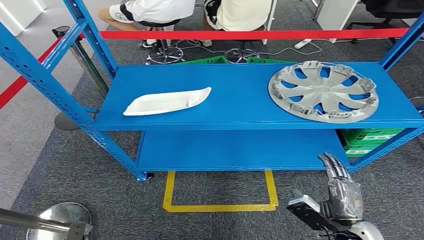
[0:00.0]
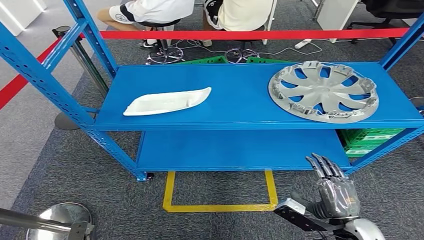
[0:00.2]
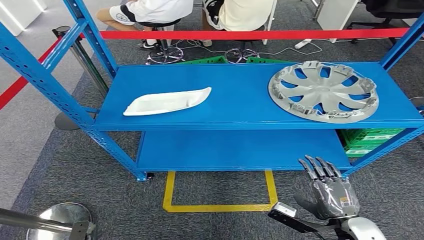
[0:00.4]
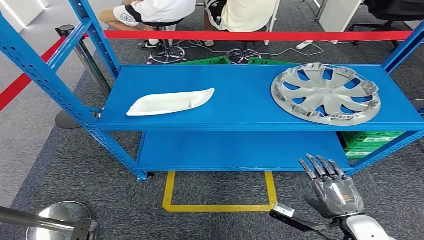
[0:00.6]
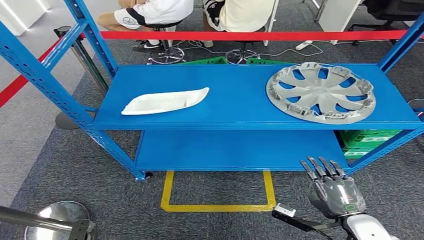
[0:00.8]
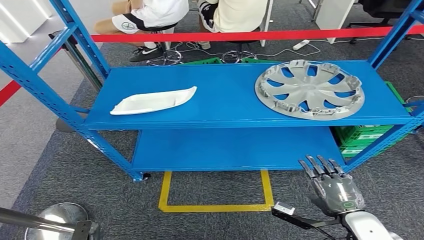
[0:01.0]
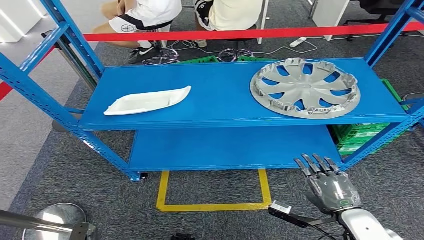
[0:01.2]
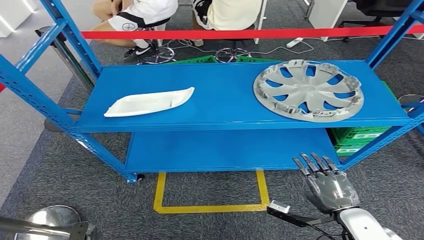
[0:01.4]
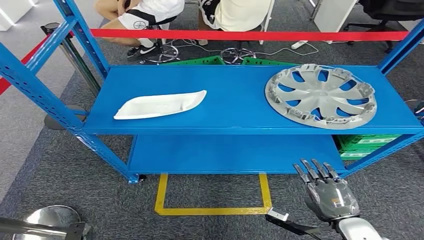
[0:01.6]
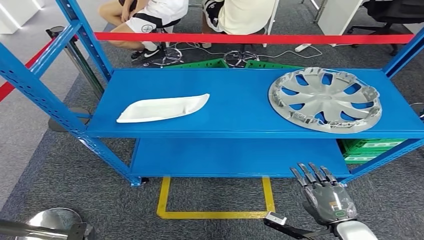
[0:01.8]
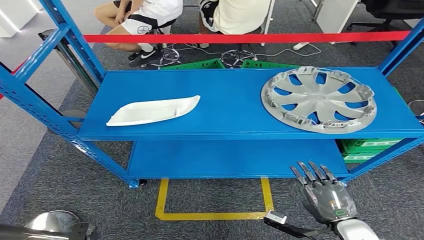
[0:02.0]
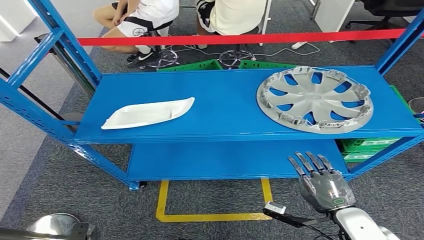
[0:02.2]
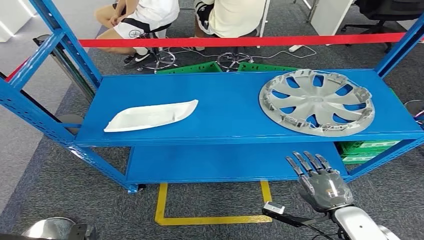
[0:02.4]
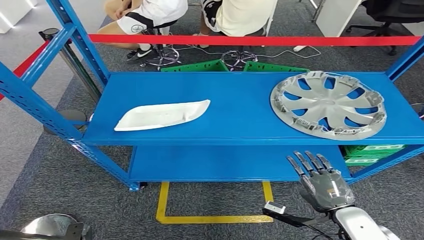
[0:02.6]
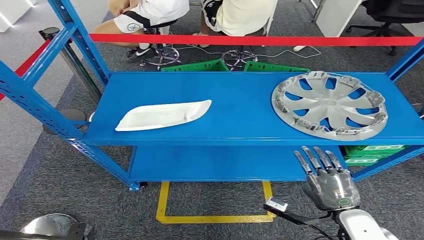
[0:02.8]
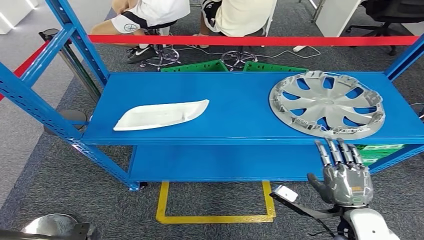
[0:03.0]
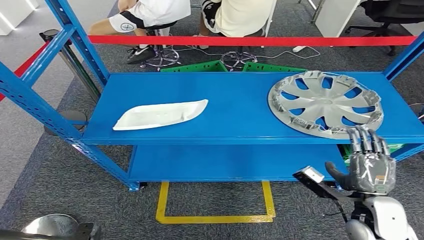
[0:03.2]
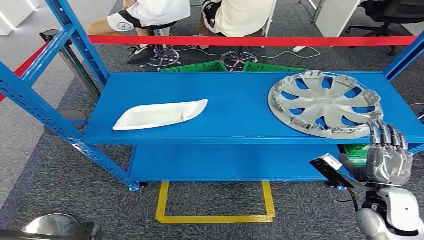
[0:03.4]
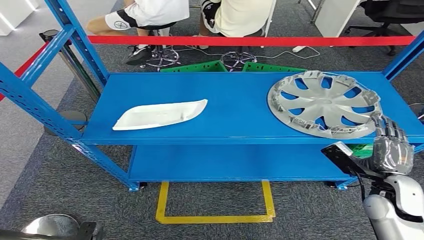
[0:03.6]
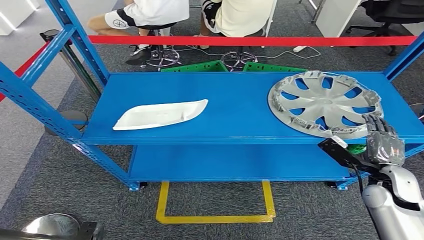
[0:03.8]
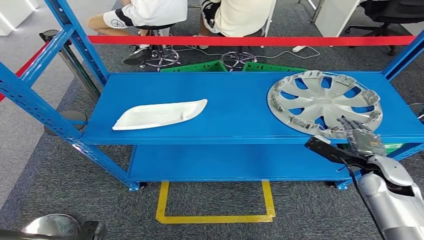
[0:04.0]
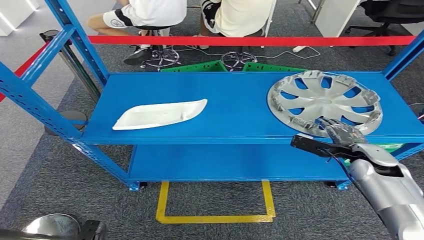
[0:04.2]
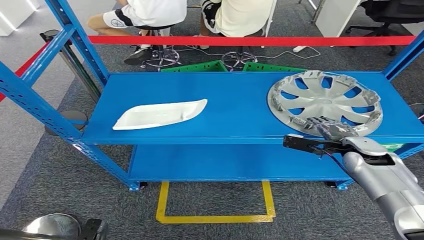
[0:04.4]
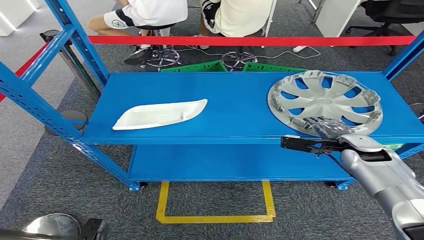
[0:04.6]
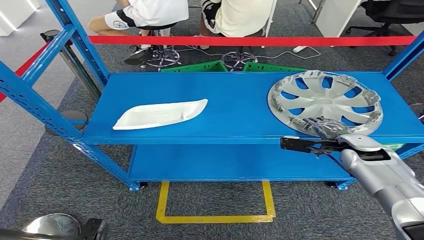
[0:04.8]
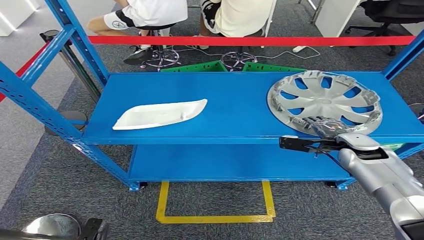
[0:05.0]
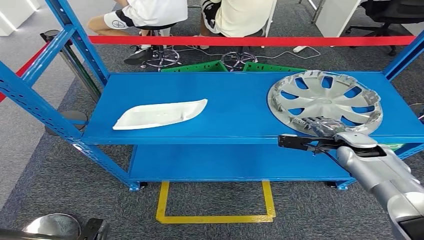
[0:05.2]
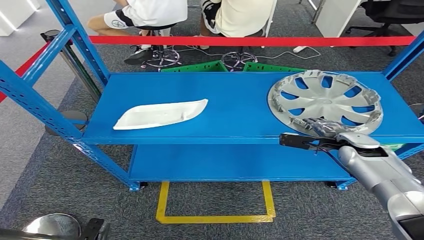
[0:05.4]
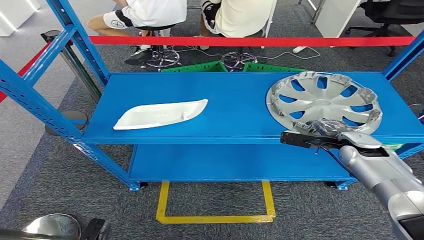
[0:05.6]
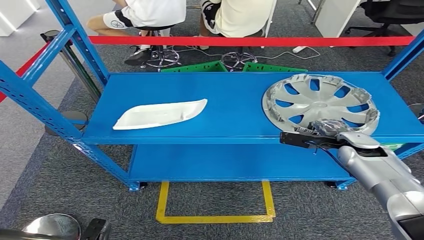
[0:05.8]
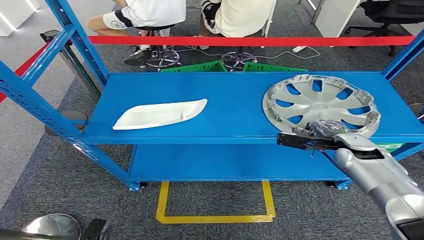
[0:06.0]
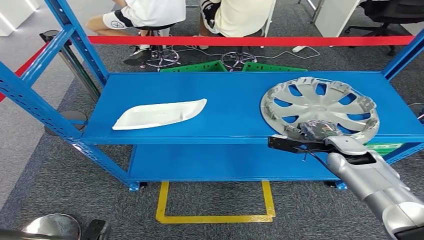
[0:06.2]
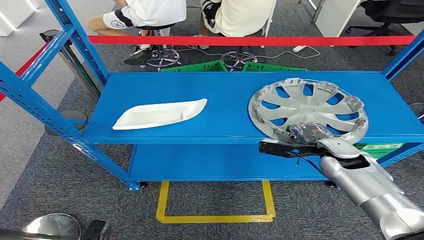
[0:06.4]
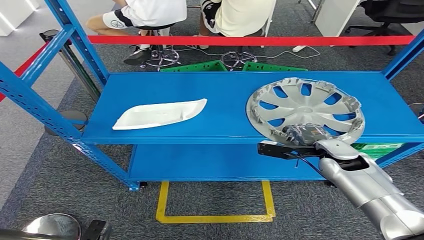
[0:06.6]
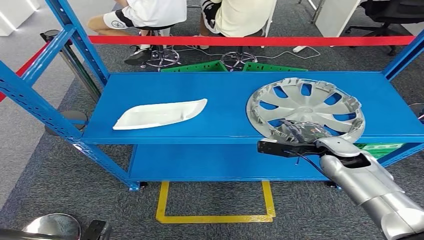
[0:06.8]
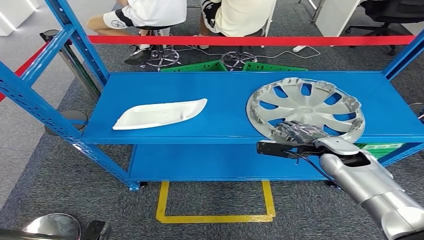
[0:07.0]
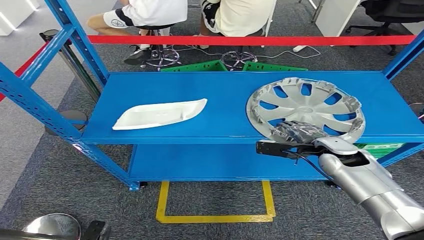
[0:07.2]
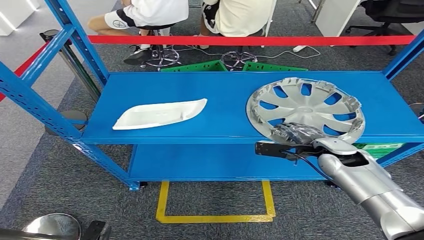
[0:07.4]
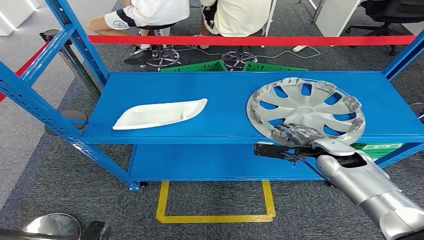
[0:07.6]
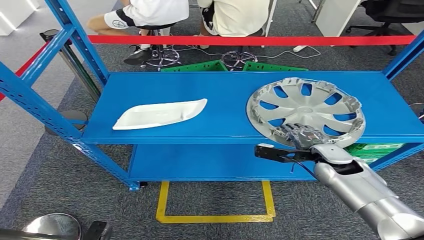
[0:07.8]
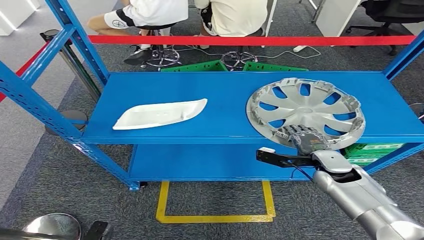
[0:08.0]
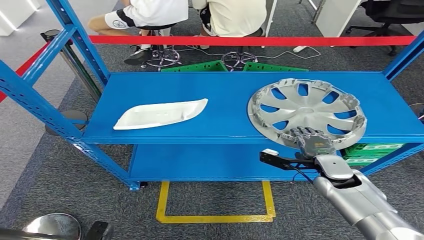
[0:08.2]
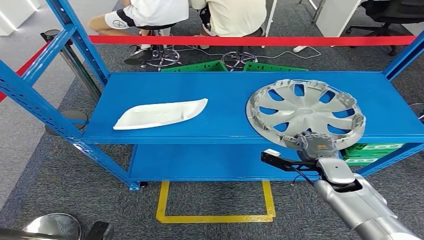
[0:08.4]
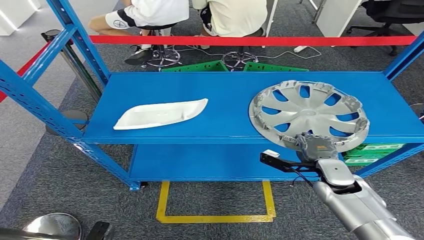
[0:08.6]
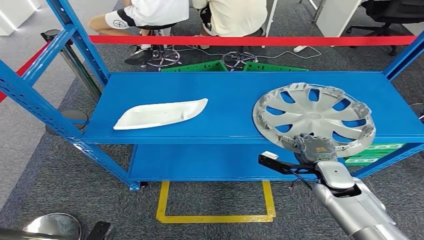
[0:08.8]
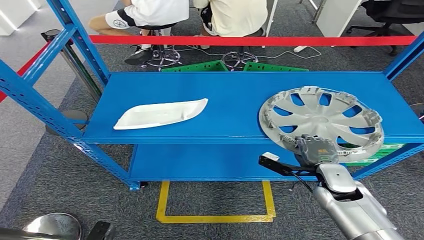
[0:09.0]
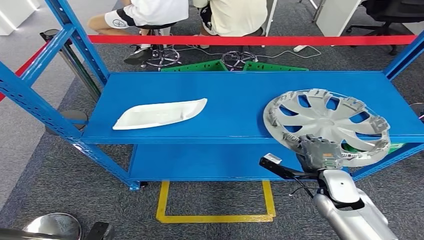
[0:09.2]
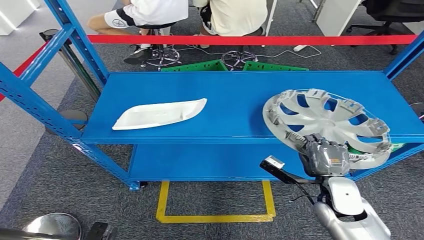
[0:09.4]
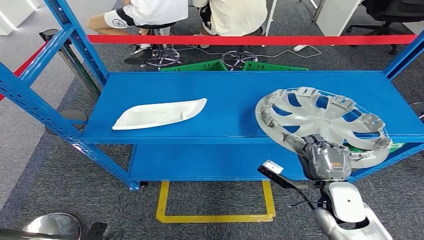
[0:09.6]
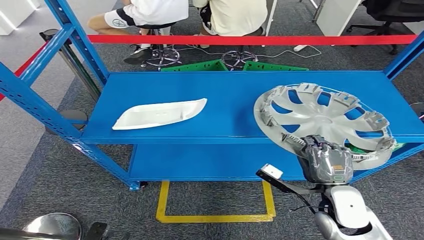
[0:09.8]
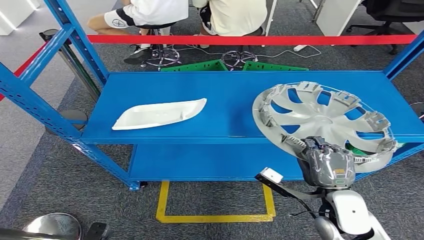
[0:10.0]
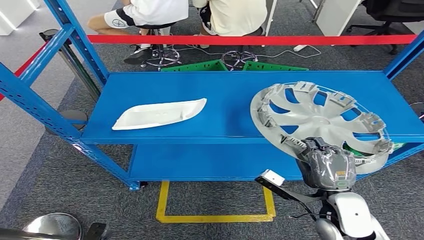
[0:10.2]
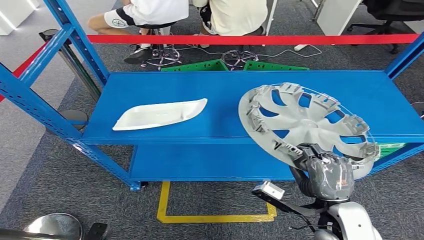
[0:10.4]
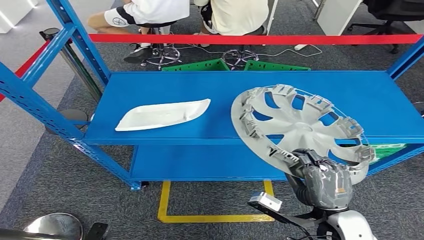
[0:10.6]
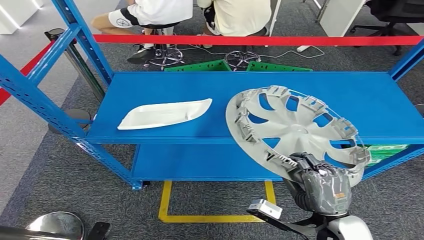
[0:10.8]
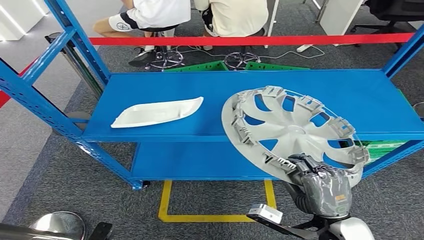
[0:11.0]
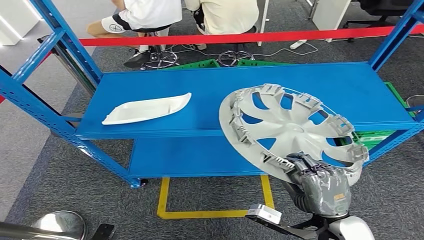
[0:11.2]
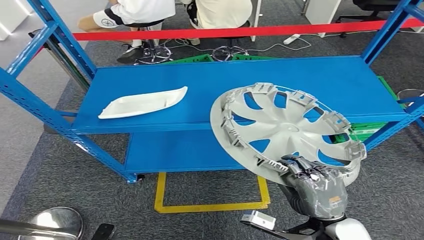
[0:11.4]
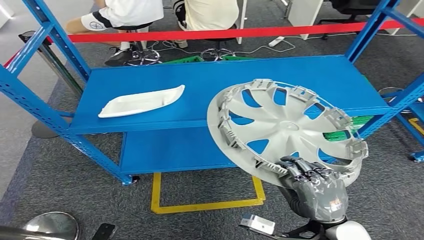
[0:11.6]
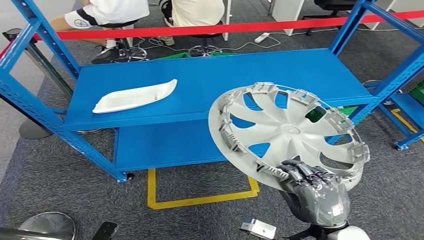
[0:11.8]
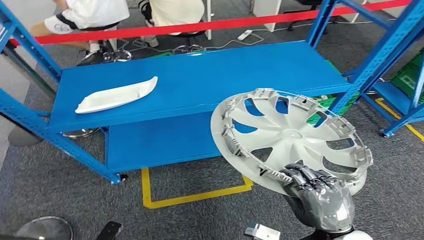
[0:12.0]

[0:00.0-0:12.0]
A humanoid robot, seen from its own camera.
Step, 0:00.0 to 0:11.0: Pick up the small component from the shelf.
0:03.0 to 0:04.4: The right hand is displaced forward by roughly 20 cm.
0:04.4 to 0:06.0: There are only small adjustments of the hands.
0:06.0 to 0:07.6: The right hand goes about 5 cm to the left.
0:07.6 to 0:09.0: The right hand goes about 10 cm backward and downward.
0:09.0 to 0:10.4: The right hand goes roughly 10 cm backward.

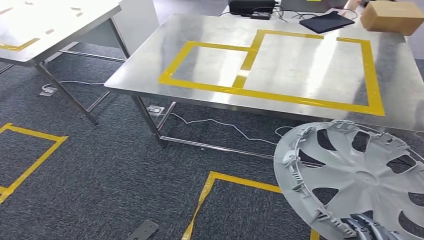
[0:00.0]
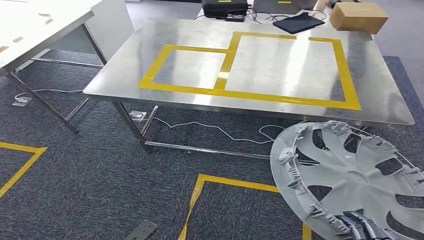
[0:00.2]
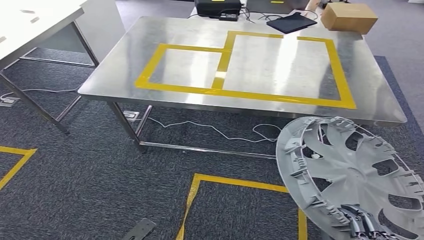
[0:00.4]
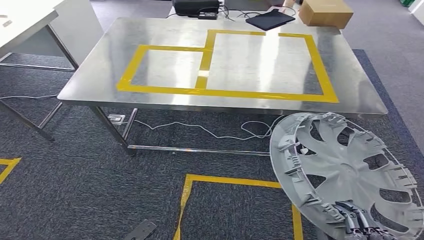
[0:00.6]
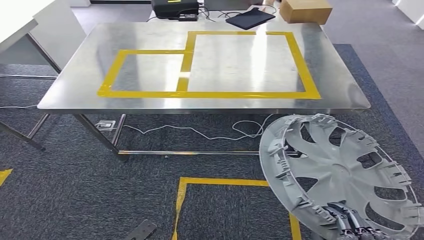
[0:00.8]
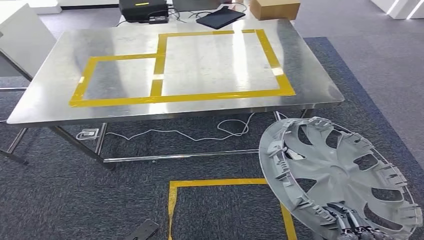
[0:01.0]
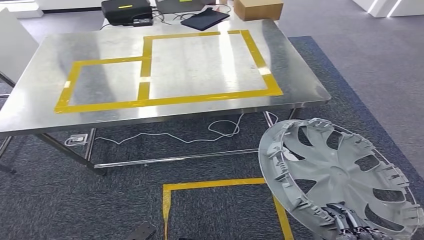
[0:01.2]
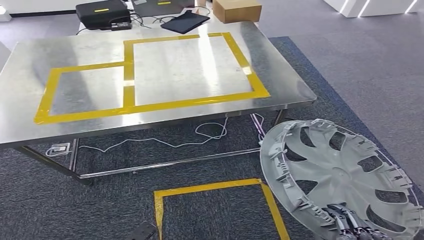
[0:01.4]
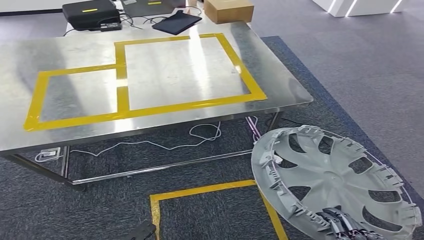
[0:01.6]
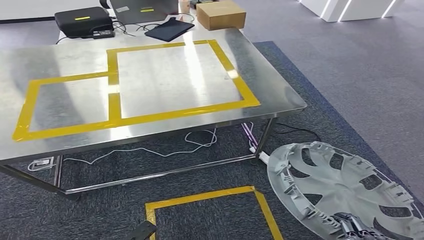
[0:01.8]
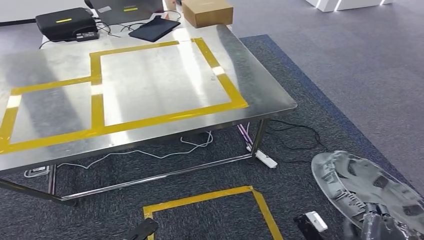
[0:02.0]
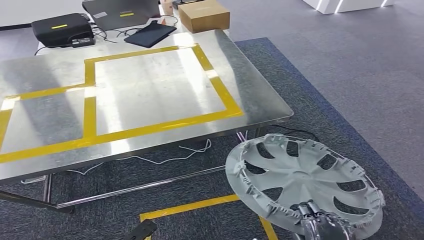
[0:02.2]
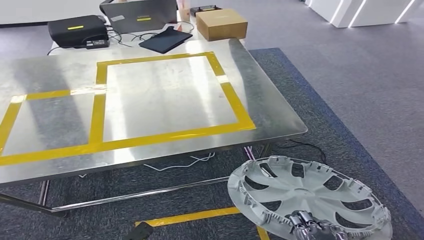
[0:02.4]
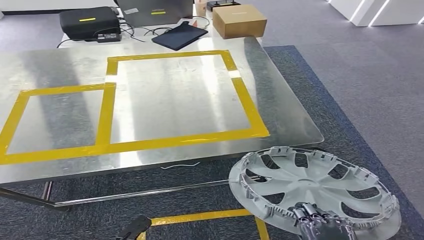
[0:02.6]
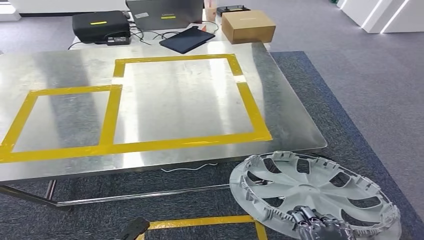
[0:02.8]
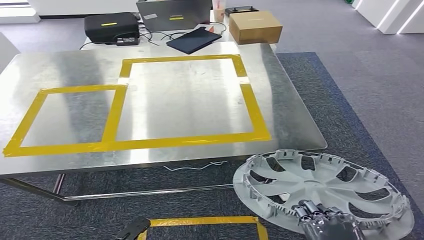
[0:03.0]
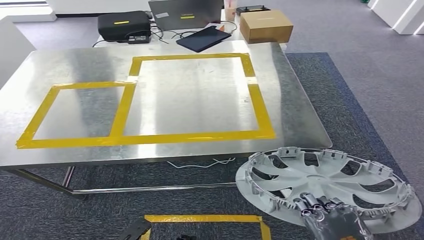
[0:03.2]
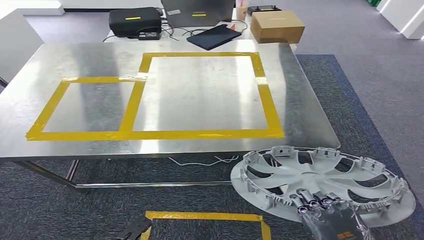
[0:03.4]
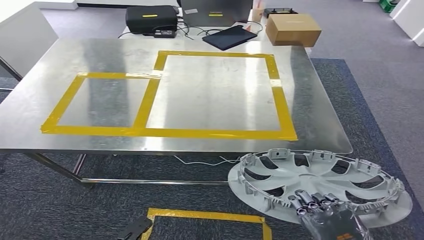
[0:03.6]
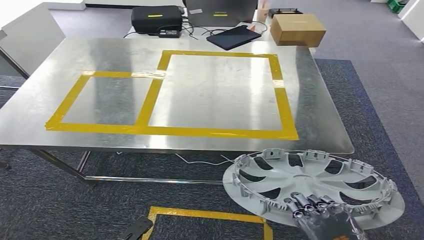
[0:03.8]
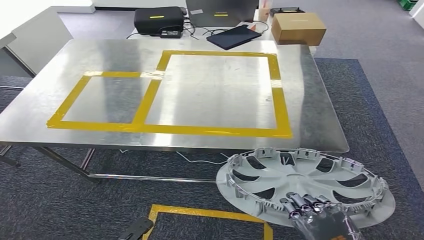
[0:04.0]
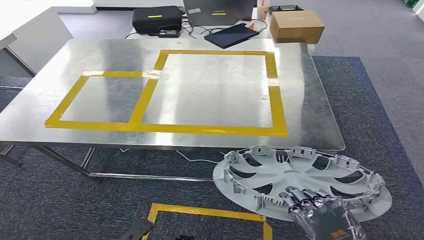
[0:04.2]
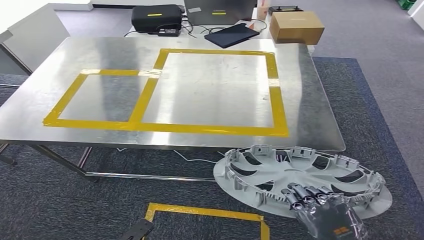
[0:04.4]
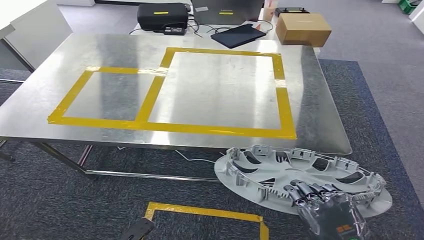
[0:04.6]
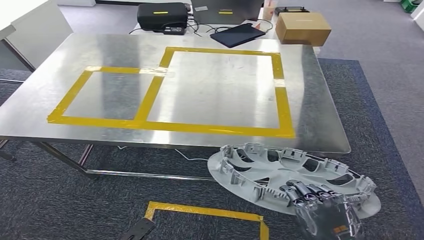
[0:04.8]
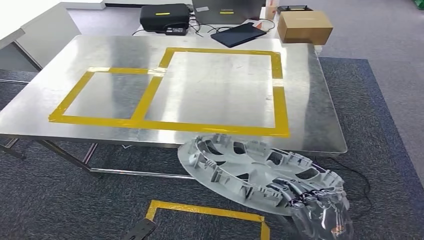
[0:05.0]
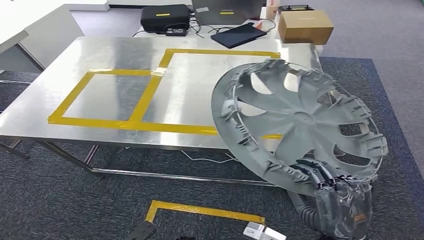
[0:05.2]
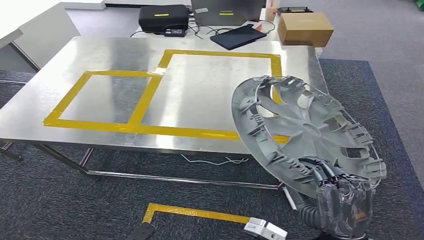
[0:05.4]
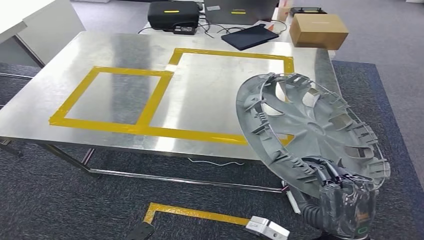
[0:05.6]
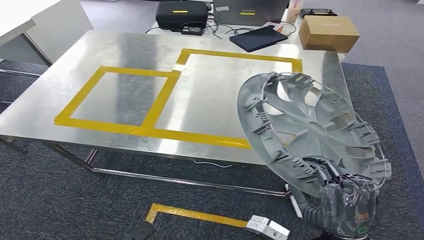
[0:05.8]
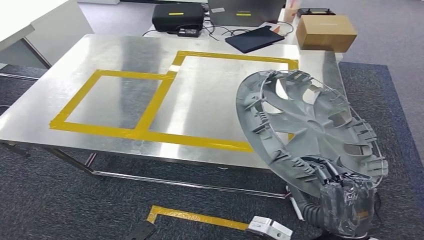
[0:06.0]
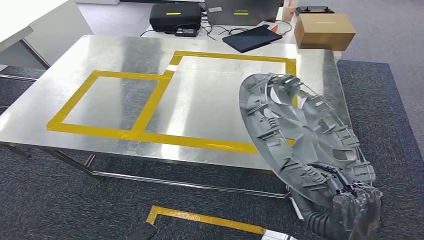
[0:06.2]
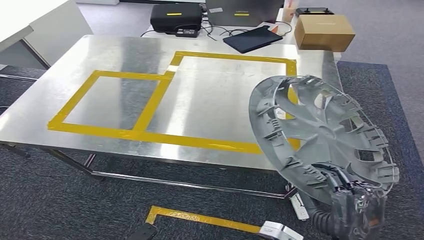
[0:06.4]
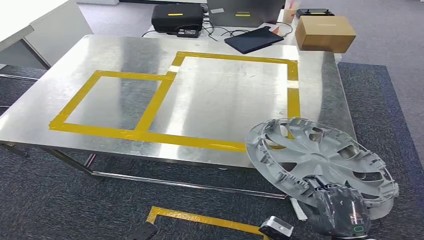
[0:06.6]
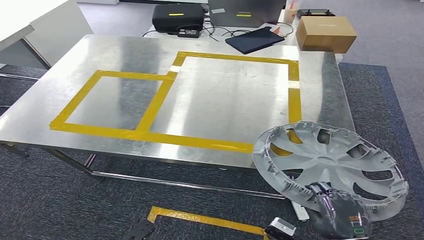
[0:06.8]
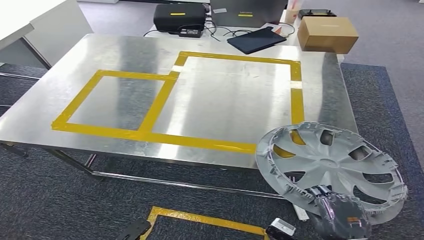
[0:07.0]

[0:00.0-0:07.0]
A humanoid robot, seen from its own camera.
Step, 0:00.0 to 0:04.0: Move the small component to the workbench.
